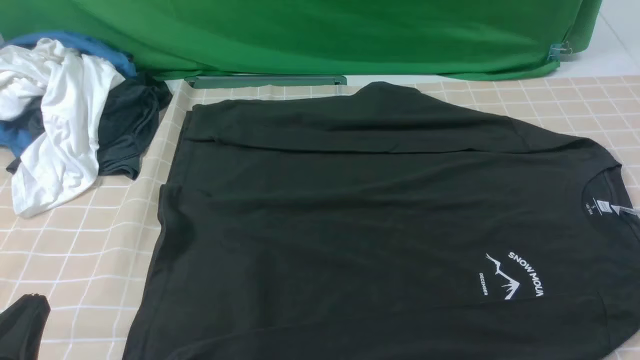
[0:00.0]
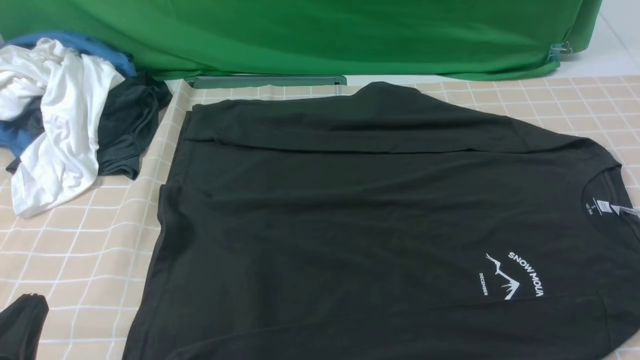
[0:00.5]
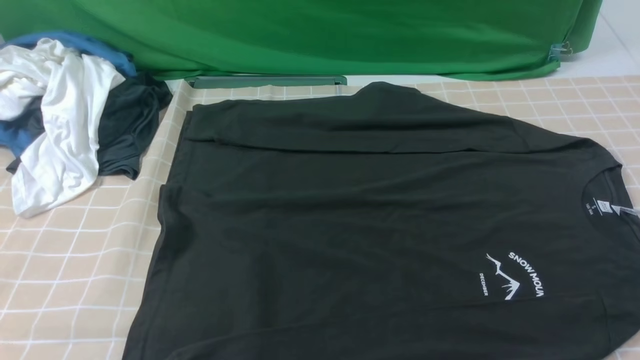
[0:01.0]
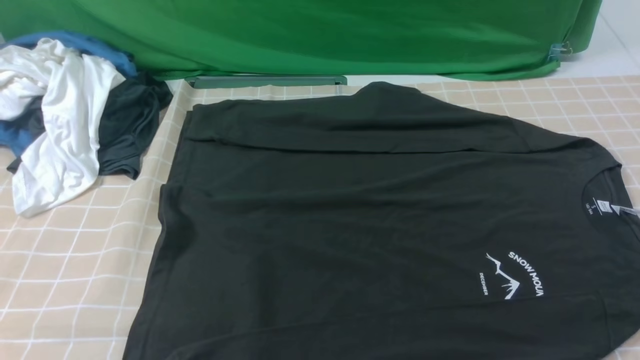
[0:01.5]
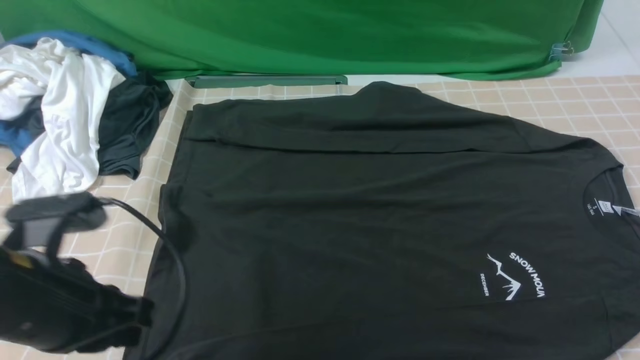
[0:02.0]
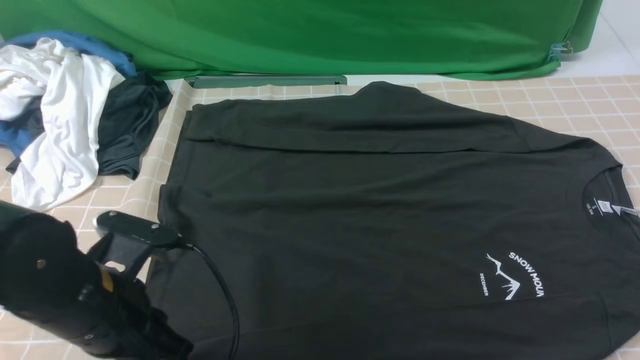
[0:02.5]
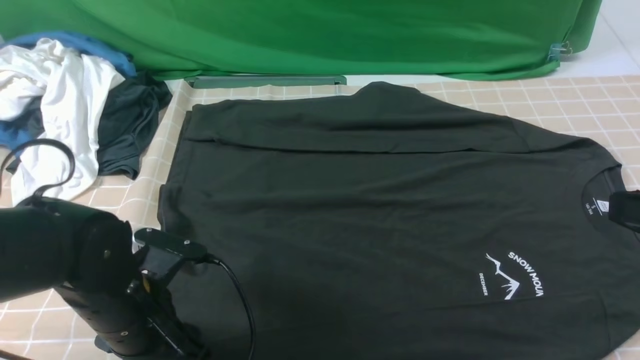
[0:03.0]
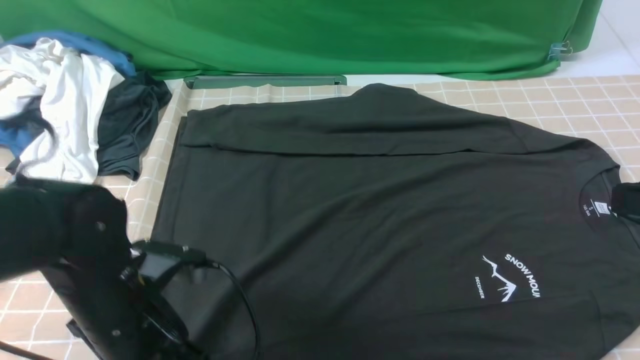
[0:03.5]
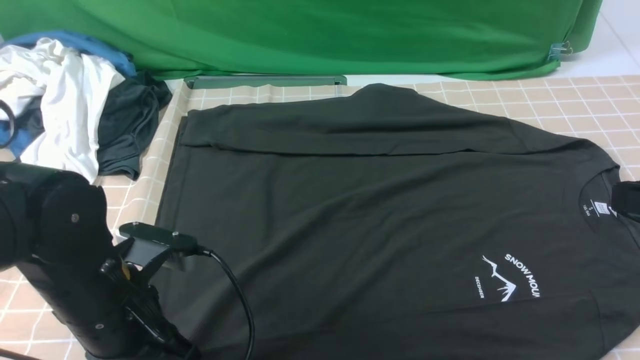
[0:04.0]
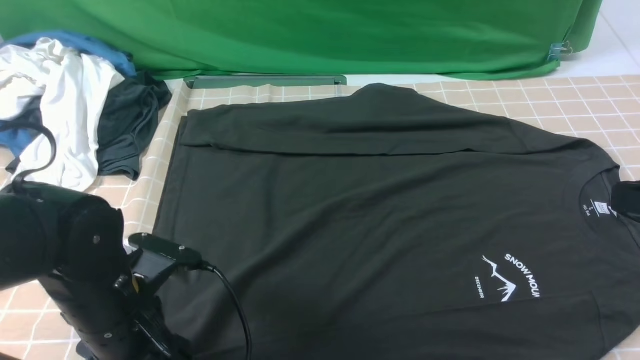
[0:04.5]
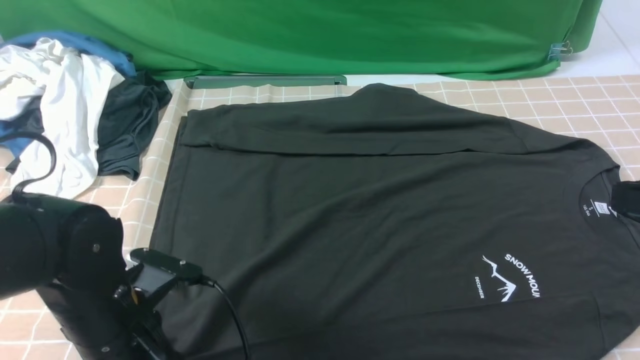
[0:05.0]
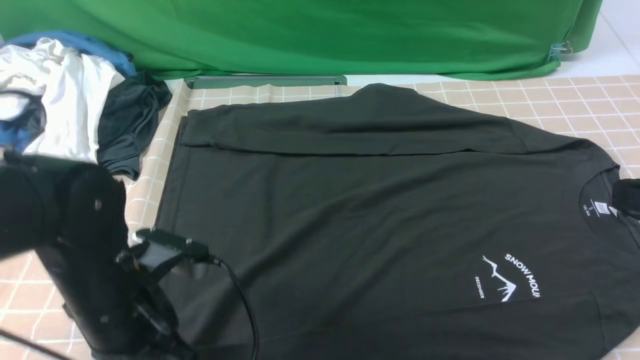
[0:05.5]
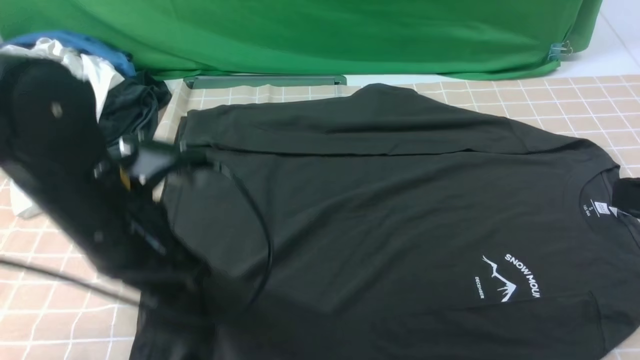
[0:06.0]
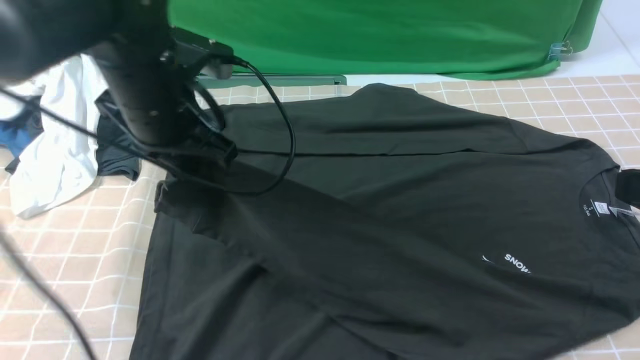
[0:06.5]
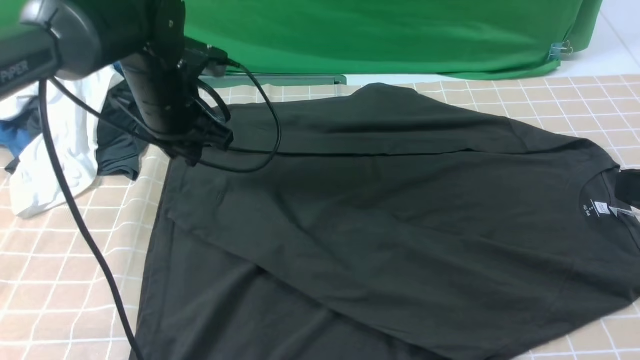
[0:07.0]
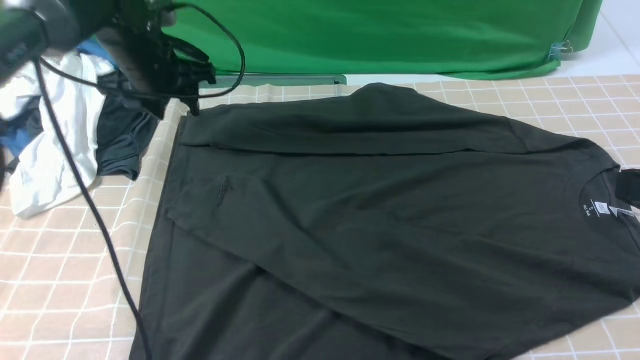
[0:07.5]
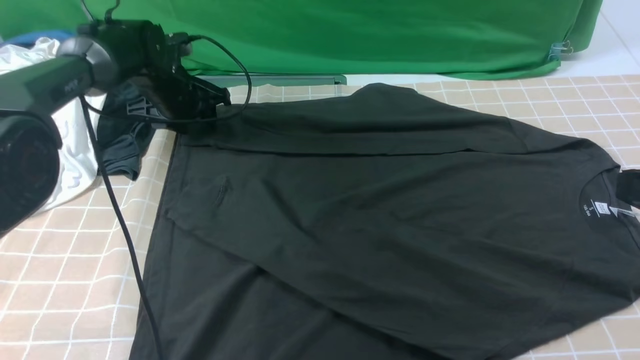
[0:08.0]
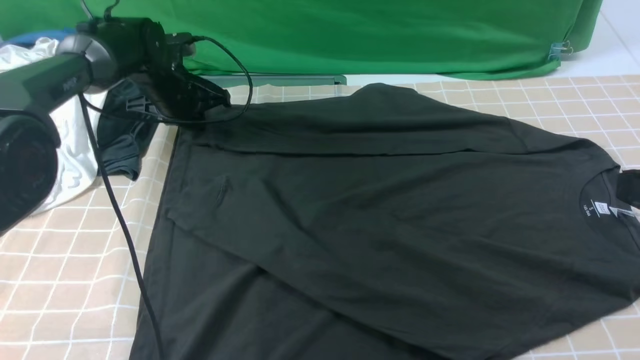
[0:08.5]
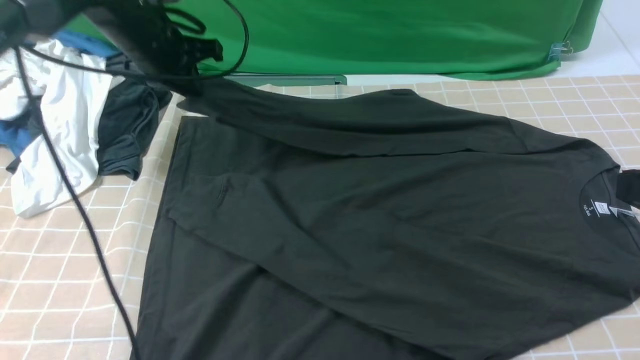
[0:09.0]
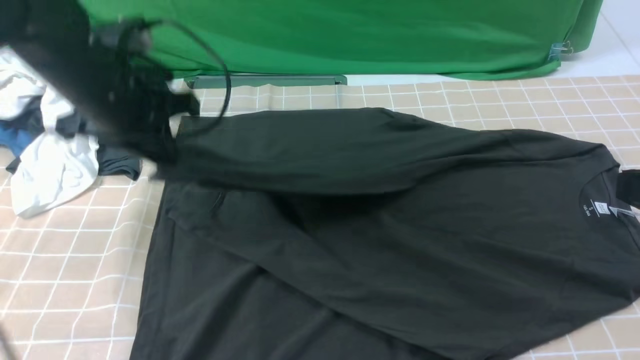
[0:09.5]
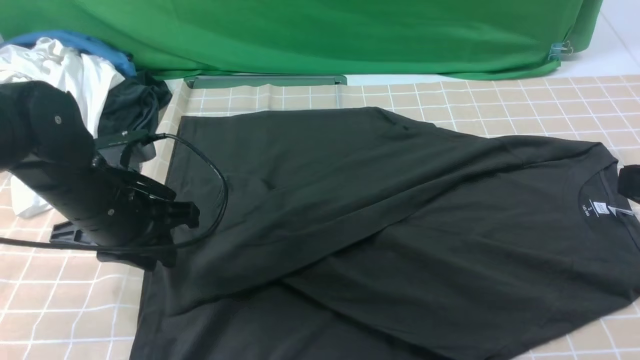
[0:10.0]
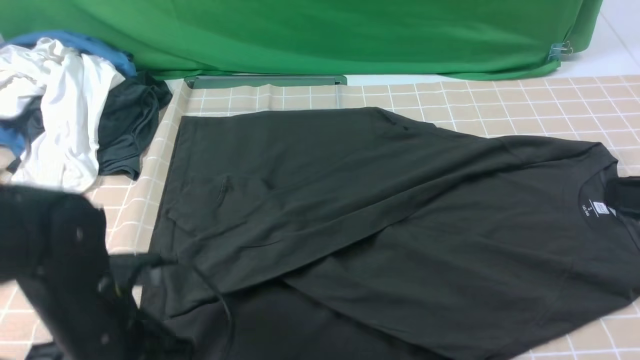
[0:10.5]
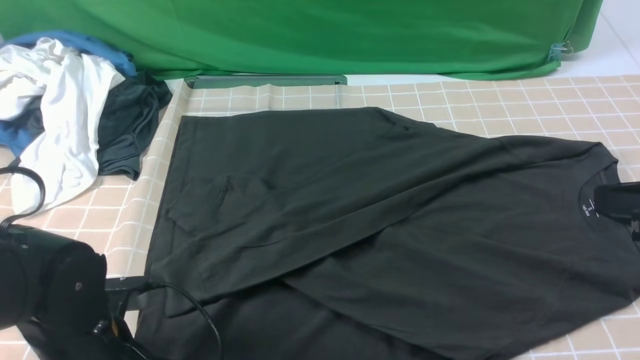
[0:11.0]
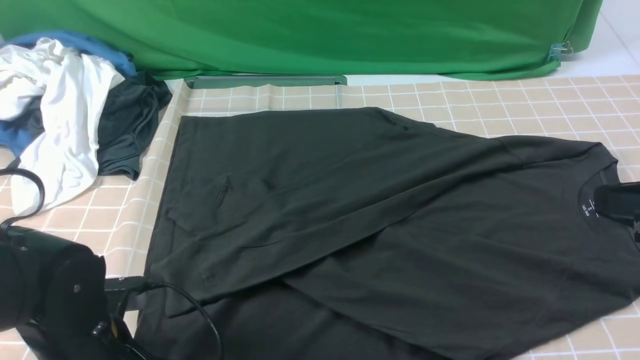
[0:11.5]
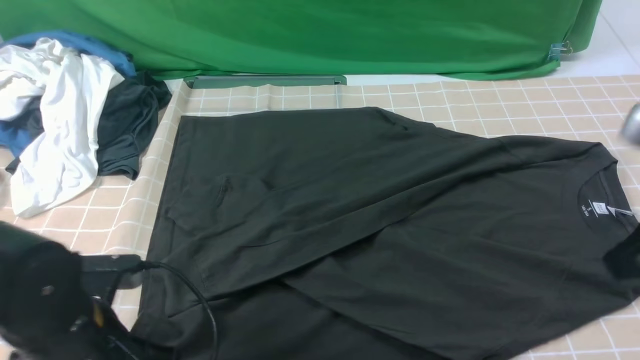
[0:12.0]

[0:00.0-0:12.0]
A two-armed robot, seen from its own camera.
Step, 0:00.0 to 0:05.0: use the left arm to clamp the cuff closest to it.
Step, 0:05.5 to 0:06.5: use the left arm to drag and place the cuff at the centered position on the left edge of the fabric.
Step, 0:07.0 to 0:08.0: use the left arm to clamp the cuff farthest from it.
Step, 0:08.5 to 0:09.5: use the left arm to drag and drop the cuff onto the cuff closest to the left arm.
0:00.0 to 0:02.0: The left gripper travels forward by approximately 10 cm.
0:02.0 to 0:04.0: The left gripper opens. Meanwhile the right gripper moves forward and upward, some 10 cm.
0:04.0 to 0:06.0: The left gripper is displaced upward by some 10 cm, and closes up.
0:06.0 to 0:08.0: The left gripper goes about 30 cm forward and downward, and opens up.
0:08.0 to 0:10.0: The left gripper shifts roughly 25 cm backward, and closes up.
0:10.0 to 0:12.0: The left gripper travels backward by about 10 cm, and closes. Meanwhile the right gripper shifts by about 5 cm.

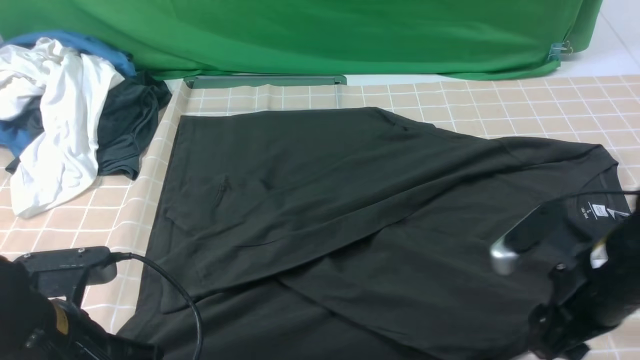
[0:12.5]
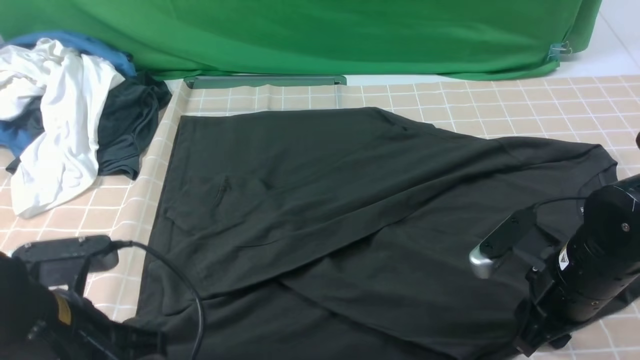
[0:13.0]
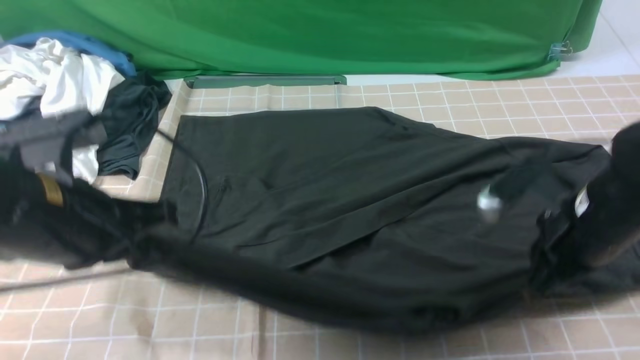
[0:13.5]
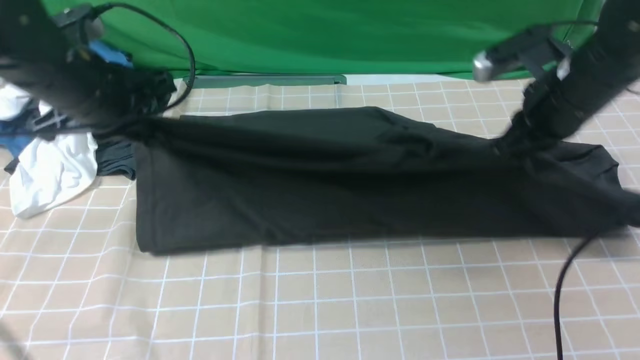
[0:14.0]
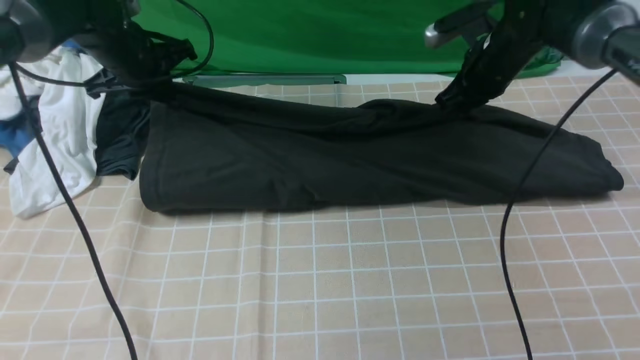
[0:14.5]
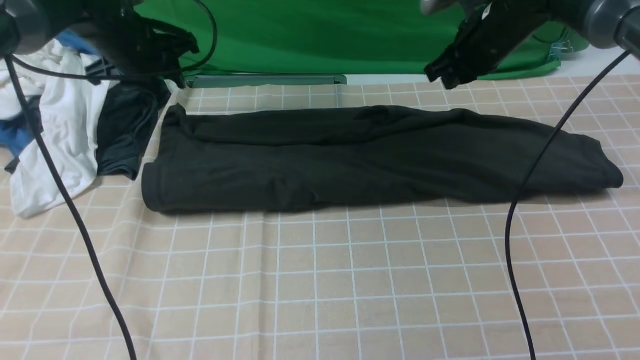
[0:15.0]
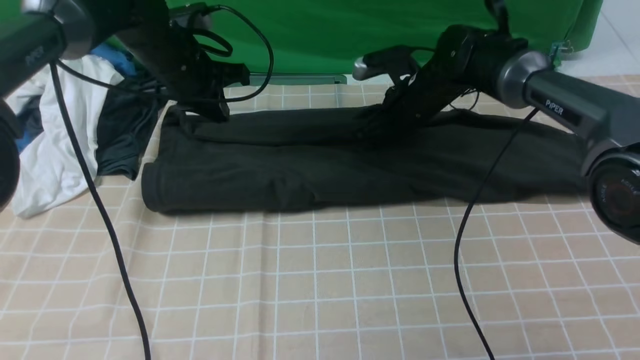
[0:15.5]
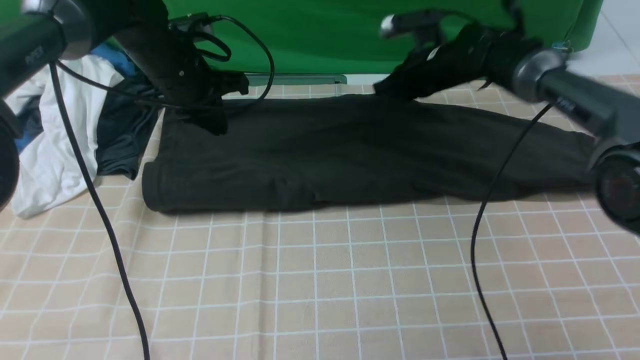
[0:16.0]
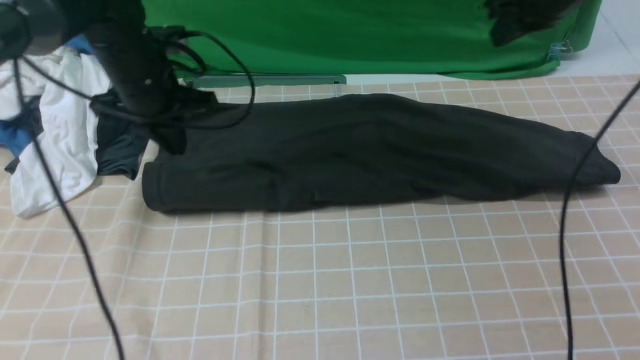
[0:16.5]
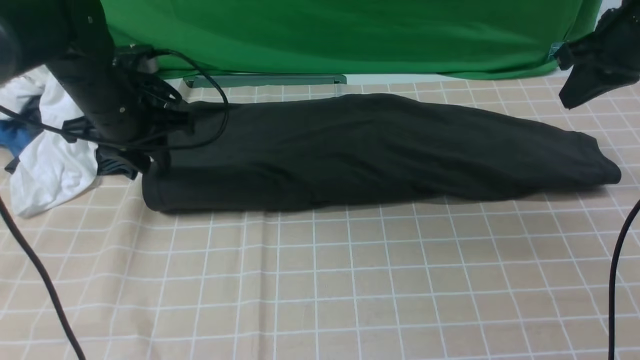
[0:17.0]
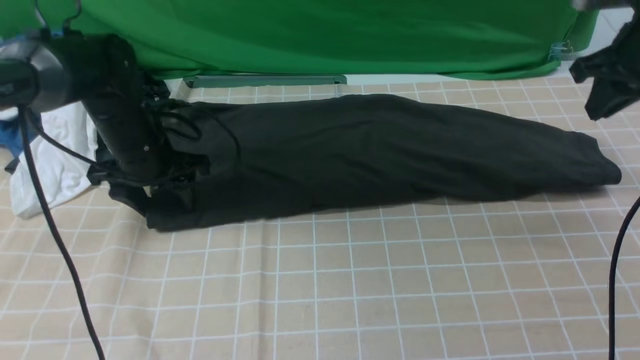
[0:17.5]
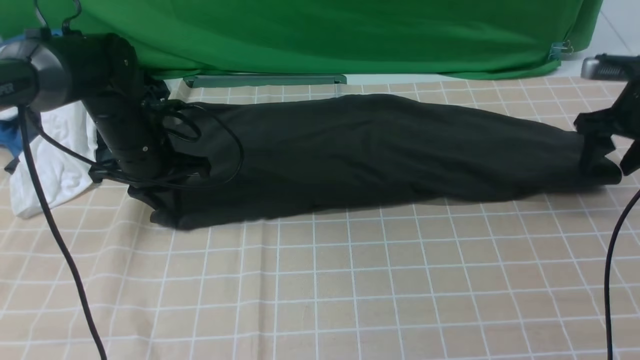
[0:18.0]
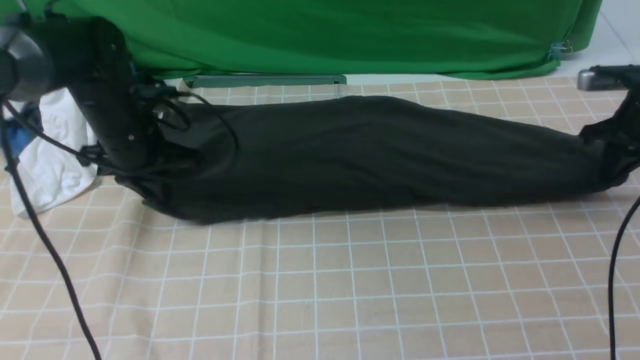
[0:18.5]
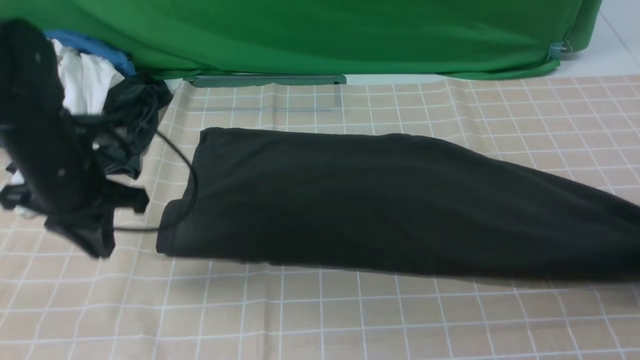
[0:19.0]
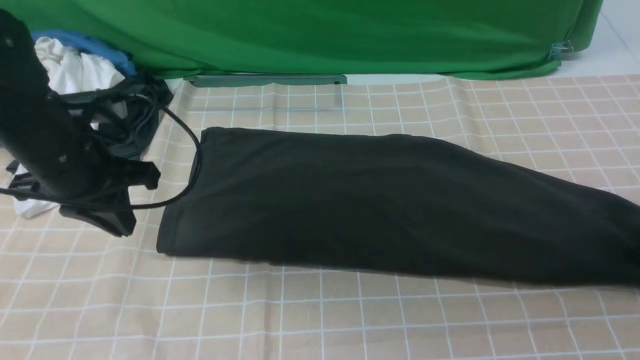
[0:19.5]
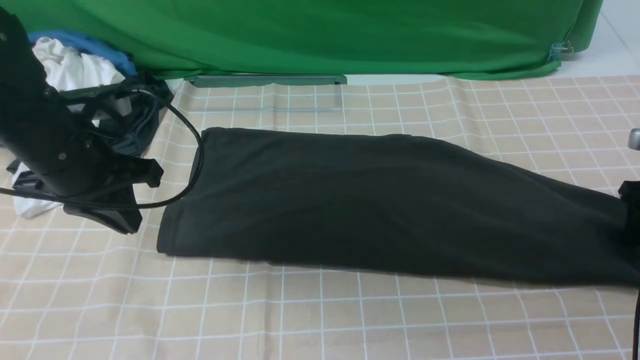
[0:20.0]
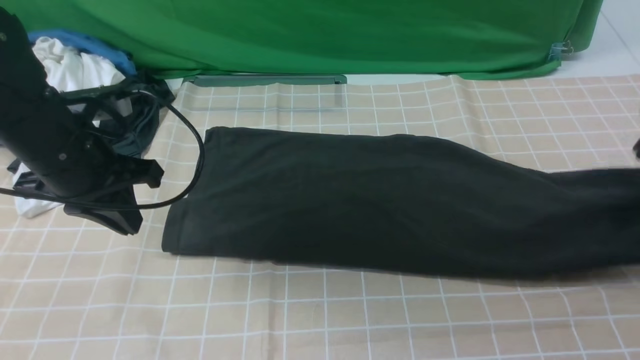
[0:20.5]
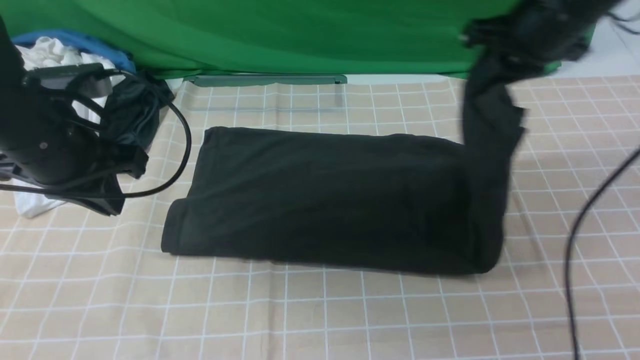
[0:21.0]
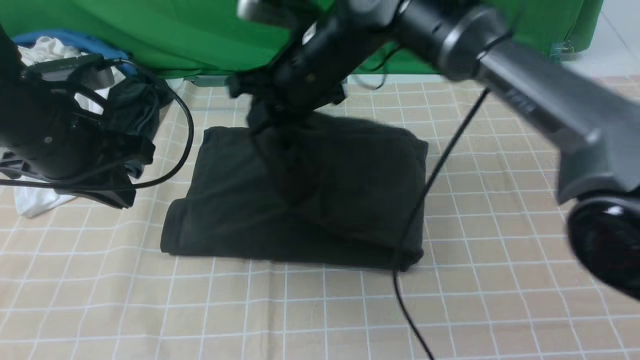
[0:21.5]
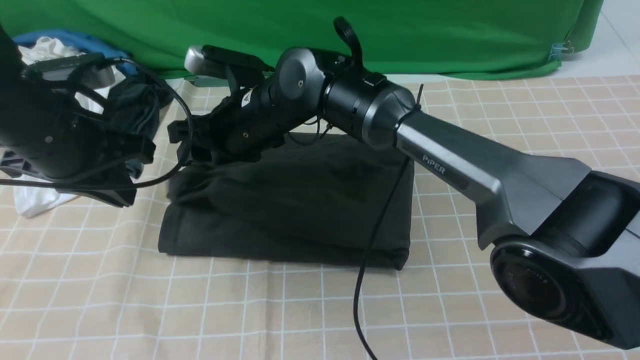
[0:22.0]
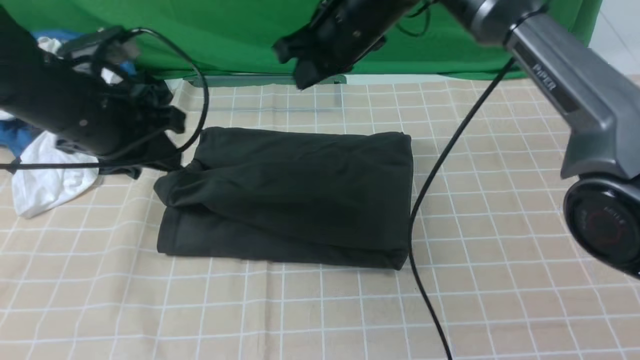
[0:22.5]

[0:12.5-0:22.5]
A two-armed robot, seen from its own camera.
Step, 0:13.5 to 0:14.5: use both arms to drag the lower edge of the fabric forward and fold it over the upper edge.
Step, 0:15.0 to 0:20.0: use the right arm to clamp the right edge of the fabric.
Step, 0:20.5 to 0:22.0: use the right arm to drag the right edge of the fabric to the left and folds it over the left edge.
0:12.5 to 0:14.5: The grippers both shift forward by about 30 cm. The right gripper closes.
0:14.5 to 0:16.5: The left gripper travels backward by about 5 cm. Meanwhile the right gripper is displaced upward and to the right by roughly 10 cm.
0:16.5 to 0:18.5: The right gripper moves to the right, downward and backward, about 20 cm, and opens, then closes once more, while the left gripper opens, then closes once more.
0:18.5 to 0:20.5: The left gripper heads backward and upward, covering some 10 cm. The right gripper opens, then closes once more.
0:20.5 to 0:22.5: The right gripper heads to the left, covering about 35 cm, and opens, then closes once more.
